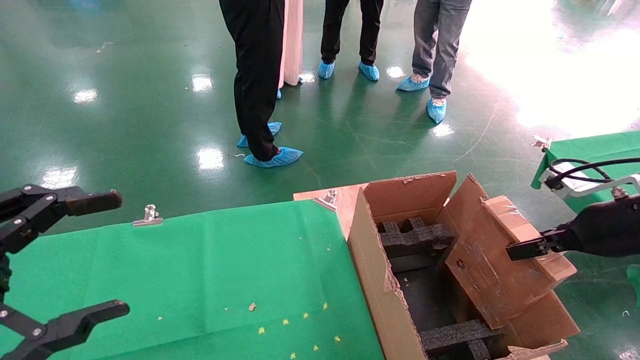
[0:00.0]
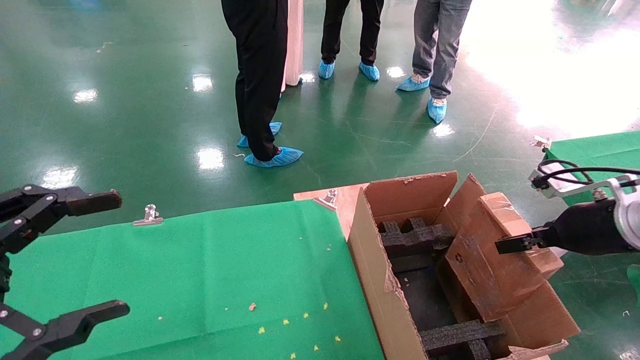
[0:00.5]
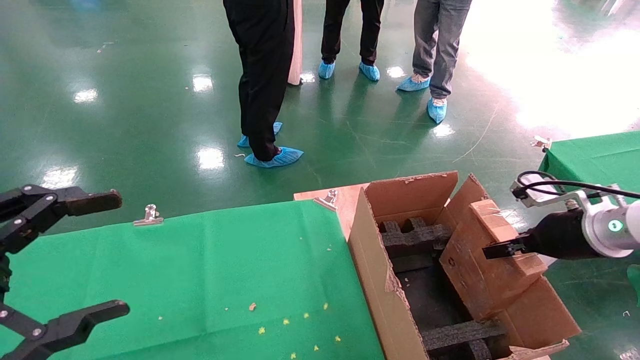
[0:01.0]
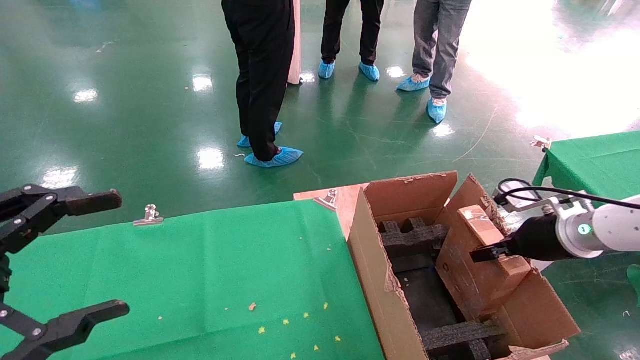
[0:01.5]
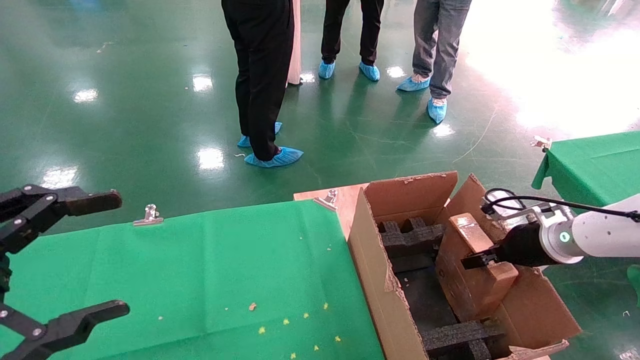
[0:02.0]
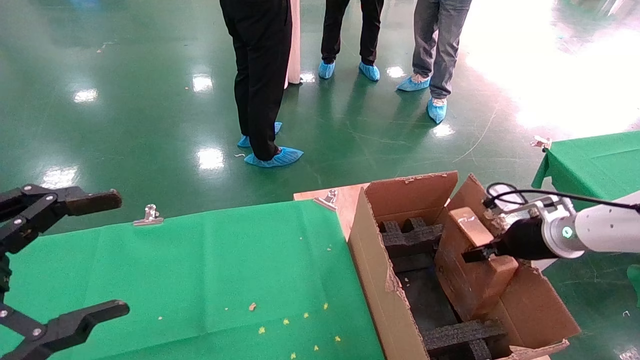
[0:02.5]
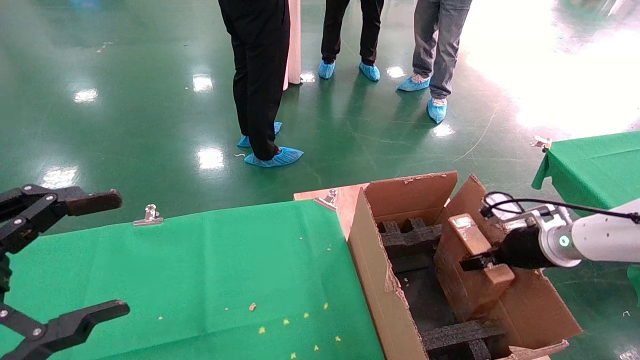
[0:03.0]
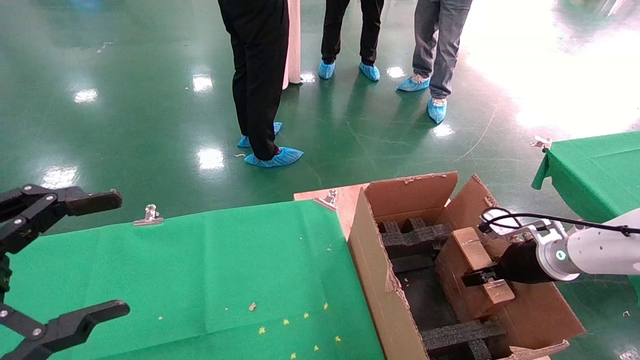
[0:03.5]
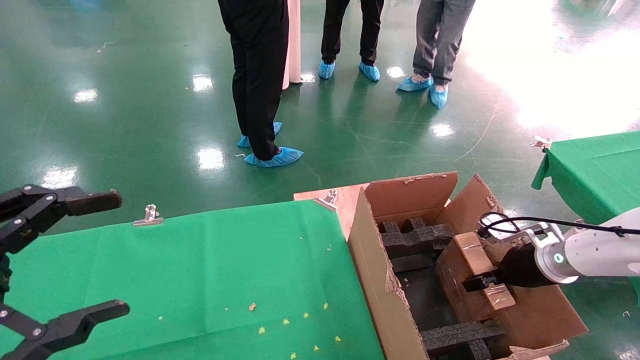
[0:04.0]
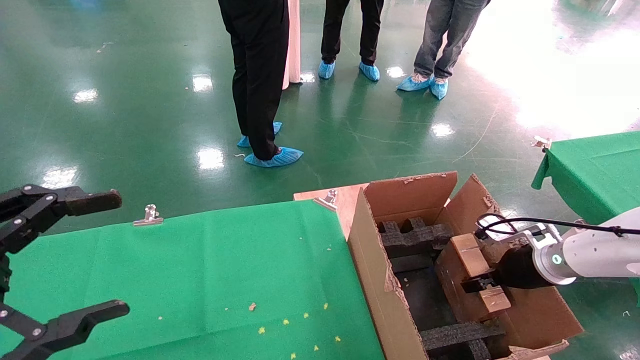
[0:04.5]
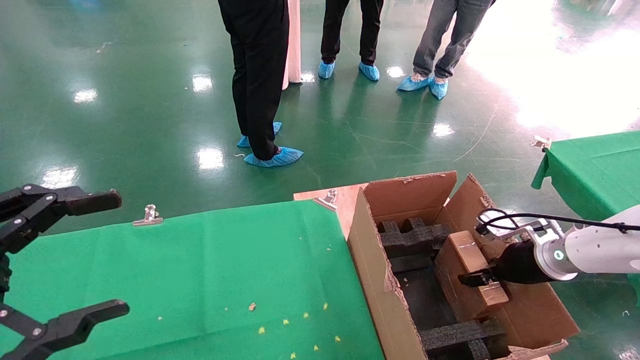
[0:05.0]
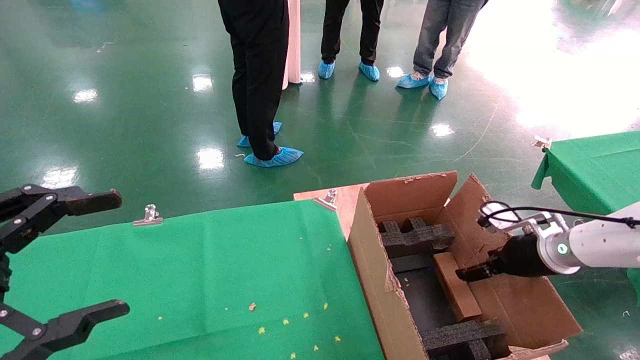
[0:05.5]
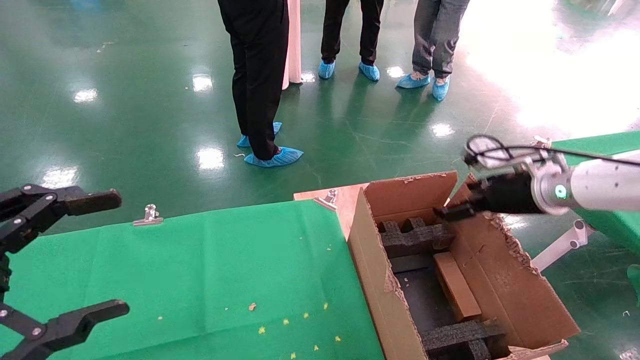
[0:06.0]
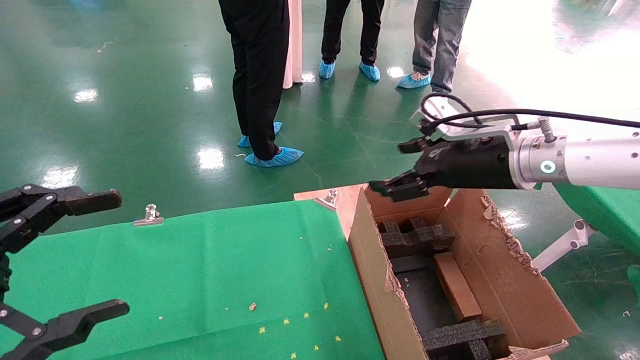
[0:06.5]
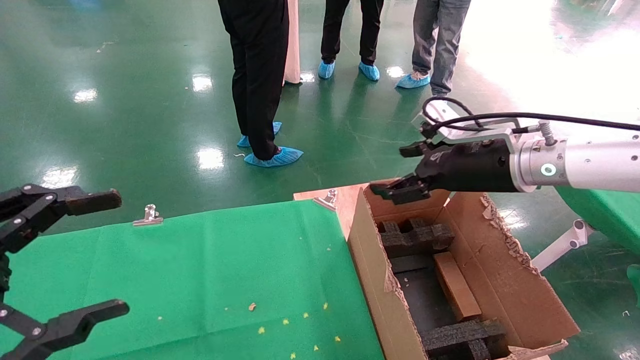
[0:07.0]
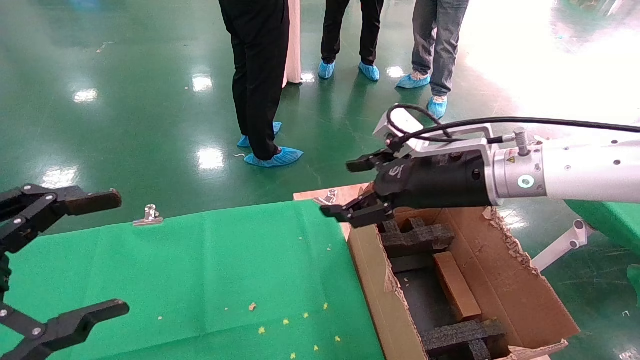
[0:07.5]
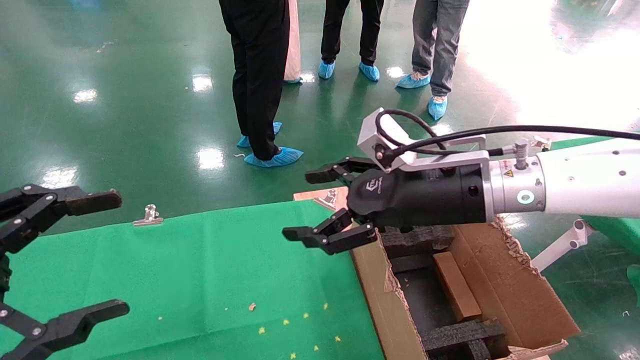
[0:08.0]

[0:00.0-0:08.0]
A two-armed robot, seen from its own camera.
Task of the whole recording: using a robotic arm to pick up a cardboard box and palace it the carton.
Step, 0:00.0 to 0:06.0: Place the mouse and the power cord paper box into the container.
0:00.0 to 0:02.0: The right gripper moves forward and downward, some 15 cm.
0:02.0 to 0:04.0: The grippers make only small movements.
0:04.0 to 0:06.0: The right gripper is displaced upward by roughly 15 cm, and opens up.
0:06.0 to 0:08.0: The right gripper shifts about 15 cm to the left.
